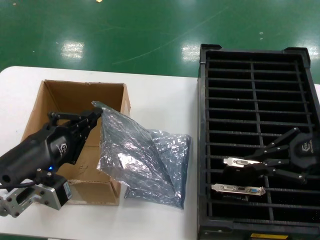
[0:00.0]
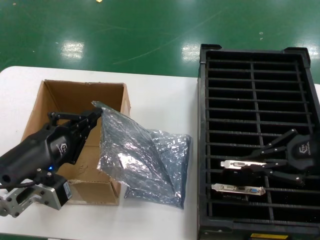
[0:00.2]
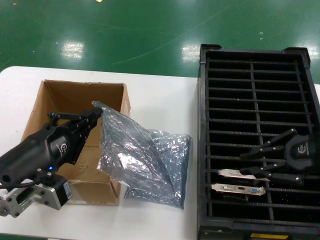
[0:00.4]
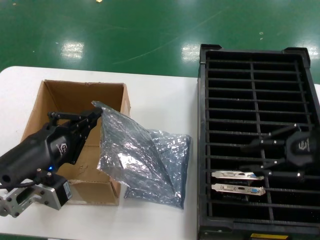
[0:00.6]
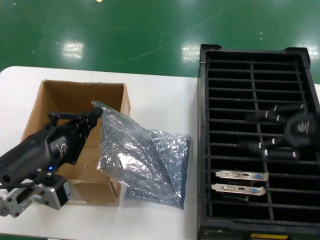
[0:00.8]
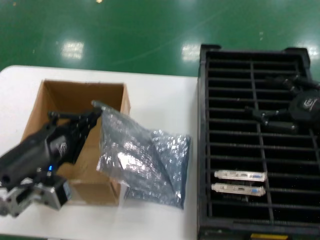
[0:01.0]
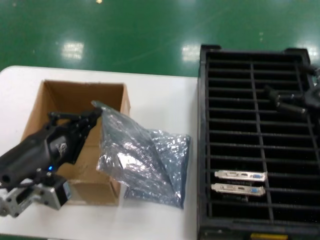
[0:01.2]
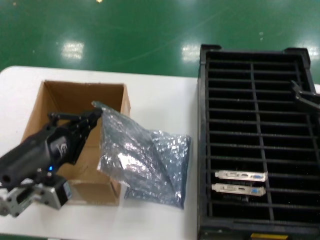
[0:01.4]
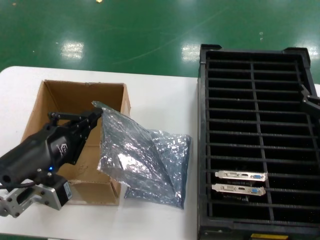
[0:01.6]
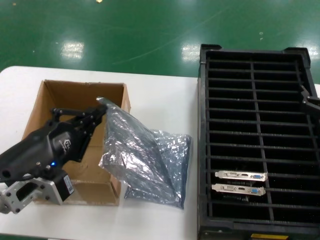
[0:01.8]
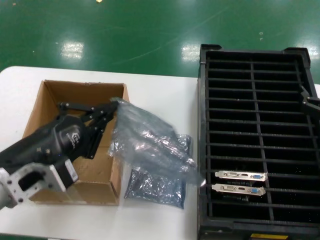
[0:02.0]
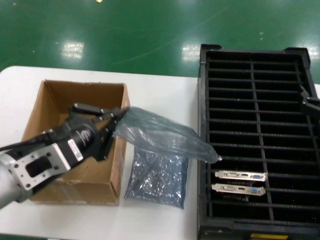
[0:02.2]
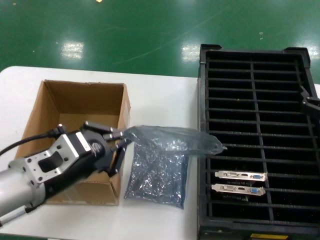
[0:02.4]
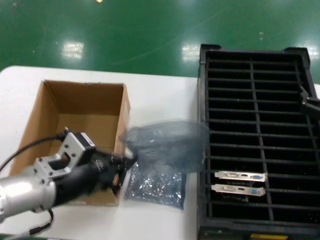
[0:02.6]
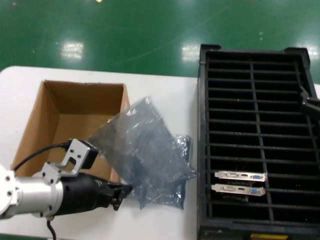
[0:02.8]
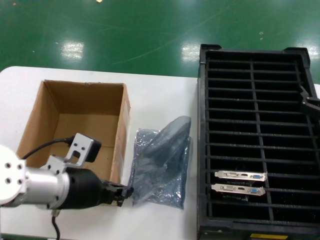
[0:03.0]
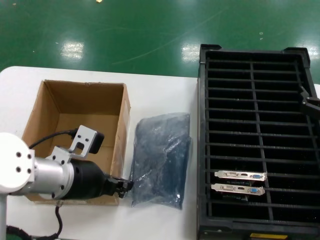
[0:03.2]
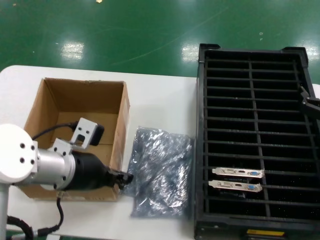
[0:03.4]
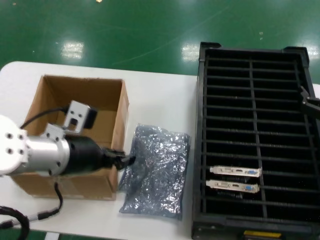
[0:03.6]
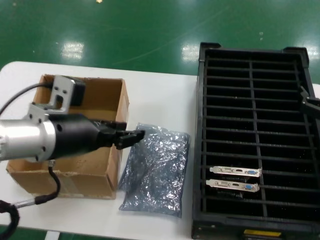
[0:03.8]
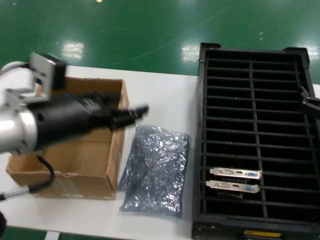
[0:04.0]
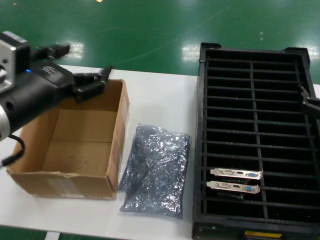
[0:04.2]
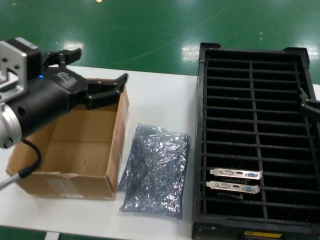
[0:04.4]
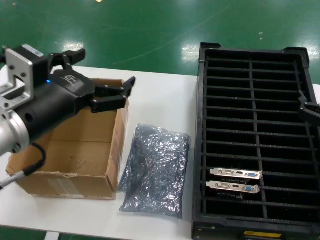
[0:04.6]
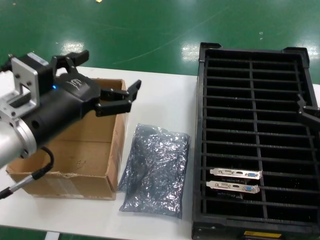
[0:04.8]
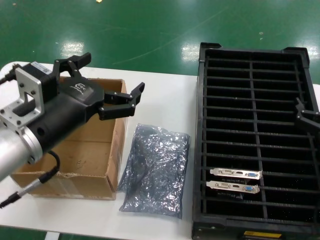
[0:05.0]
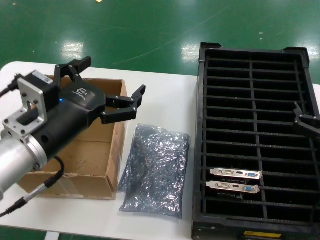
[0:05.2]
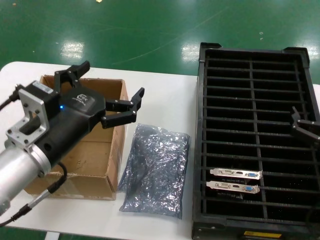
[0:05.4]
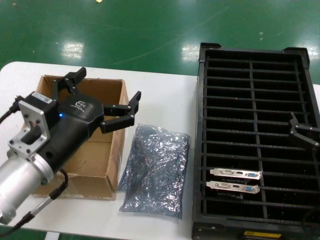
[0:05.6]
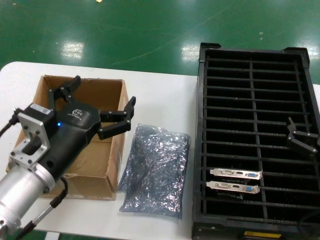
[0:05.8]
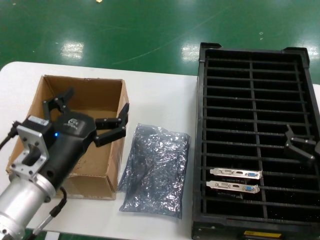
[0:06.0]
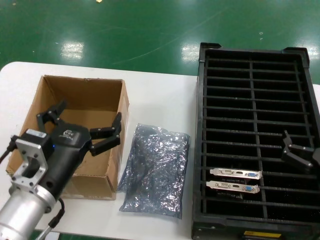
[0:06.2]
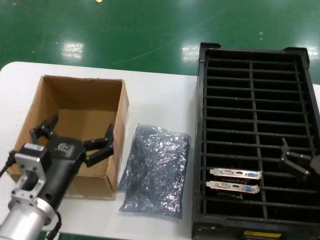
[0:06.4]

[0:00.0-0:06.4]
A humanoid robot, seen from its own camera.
Task of the whole recording: take out graphics card from box remove packaging put into black container.
Step, 0:00.8 to 0:05.0: Place the down the bag.
0:00.0 to 0:01.6: The right hand shifts roughly 10 cm downward and backward.
0:01.6 to 0:03.2: The left hand travels forward and to the right by some 10 cm.
0:03.2 to 0:04.8: The left hand heads upward and backward, covering approximately 10 cm.
0:04.8 to 0:06.4: The left hand shifts some 15 cm downward, while the right hand shifts some 10 cm downward and backward.
